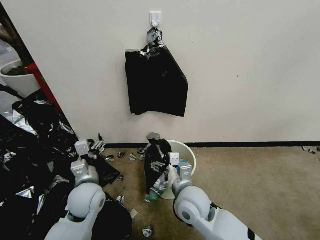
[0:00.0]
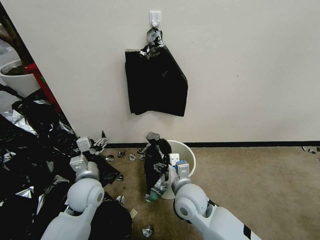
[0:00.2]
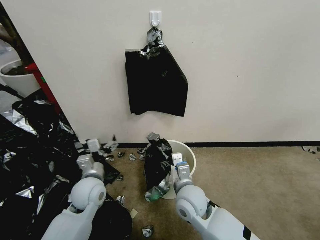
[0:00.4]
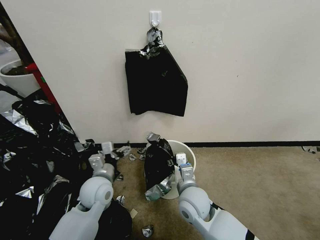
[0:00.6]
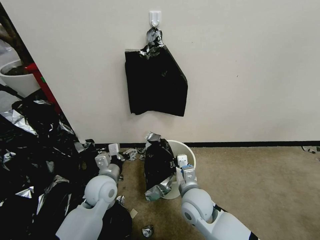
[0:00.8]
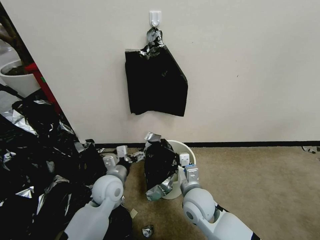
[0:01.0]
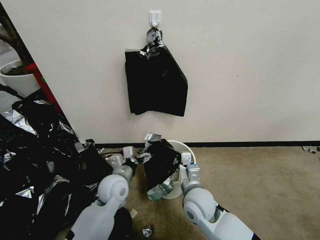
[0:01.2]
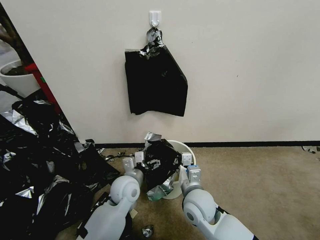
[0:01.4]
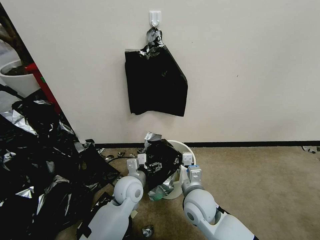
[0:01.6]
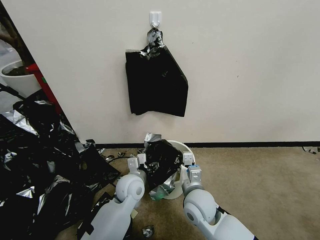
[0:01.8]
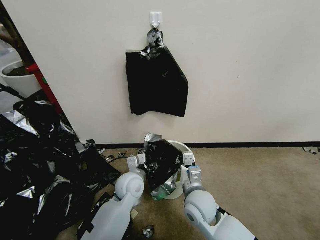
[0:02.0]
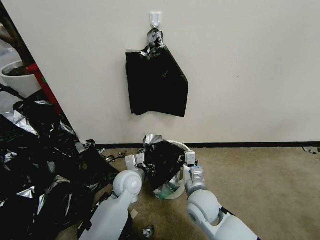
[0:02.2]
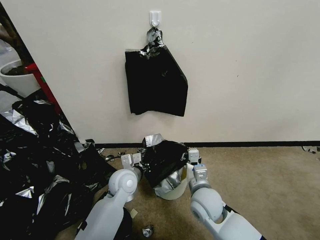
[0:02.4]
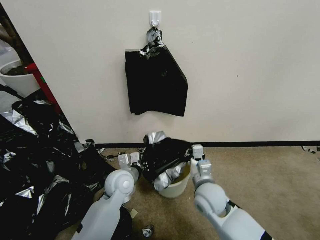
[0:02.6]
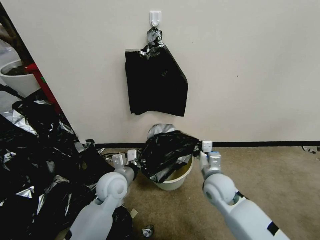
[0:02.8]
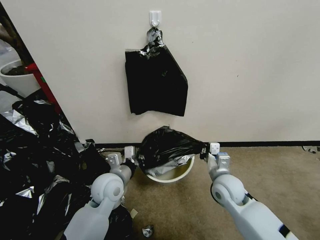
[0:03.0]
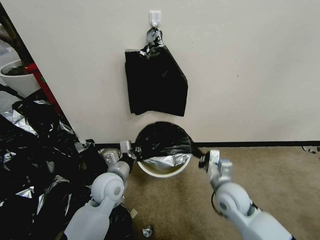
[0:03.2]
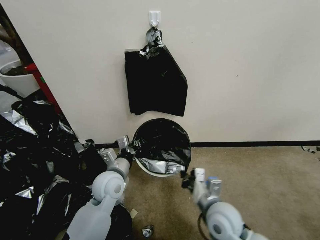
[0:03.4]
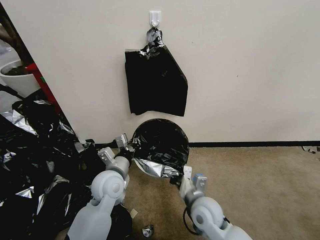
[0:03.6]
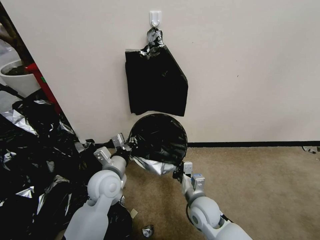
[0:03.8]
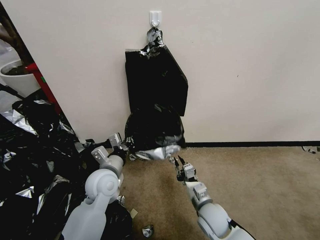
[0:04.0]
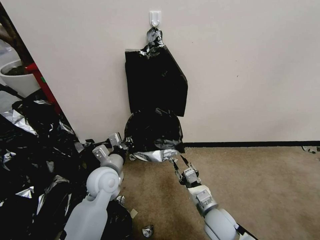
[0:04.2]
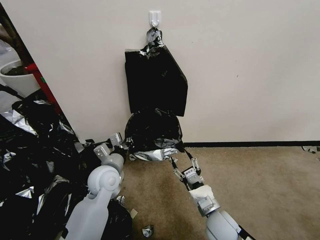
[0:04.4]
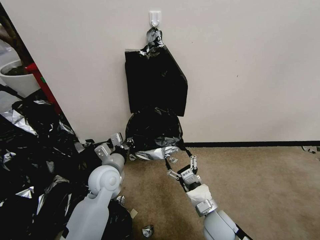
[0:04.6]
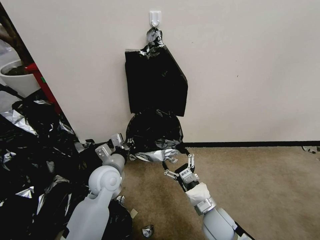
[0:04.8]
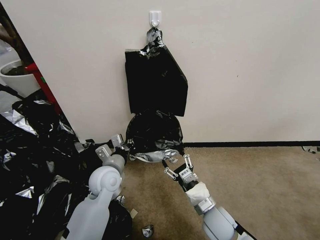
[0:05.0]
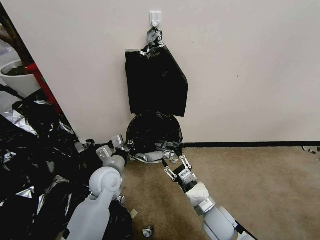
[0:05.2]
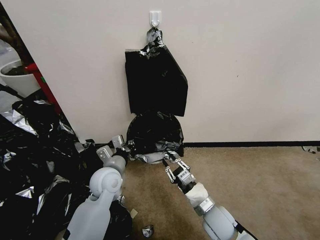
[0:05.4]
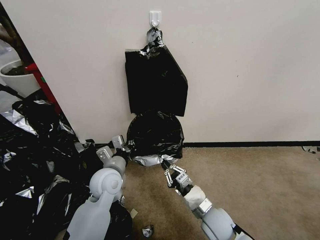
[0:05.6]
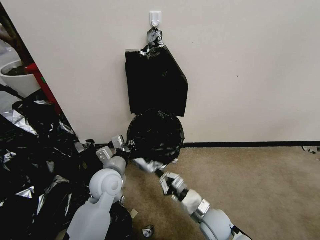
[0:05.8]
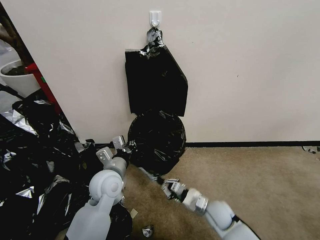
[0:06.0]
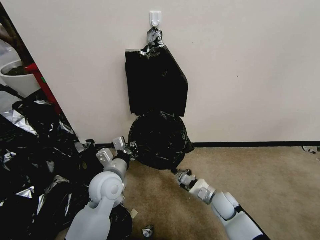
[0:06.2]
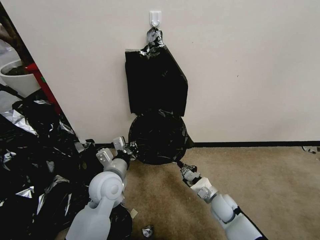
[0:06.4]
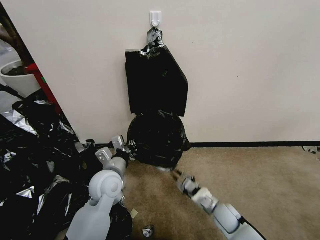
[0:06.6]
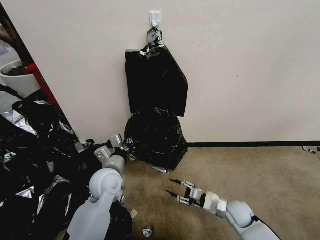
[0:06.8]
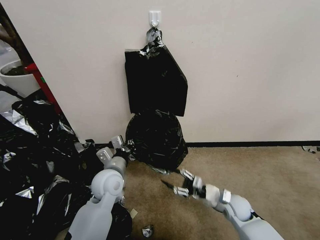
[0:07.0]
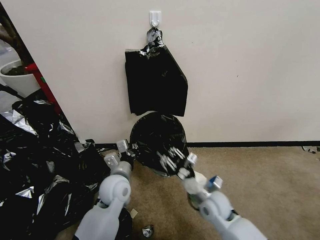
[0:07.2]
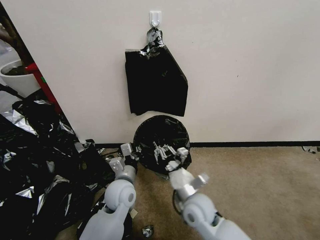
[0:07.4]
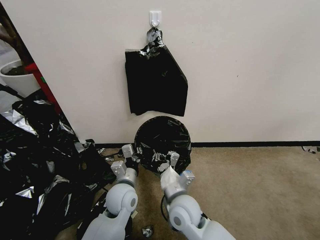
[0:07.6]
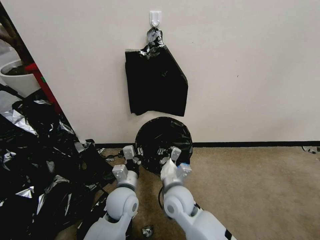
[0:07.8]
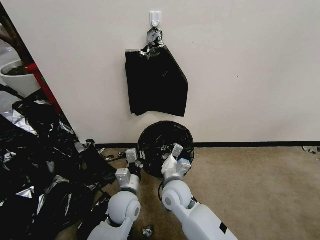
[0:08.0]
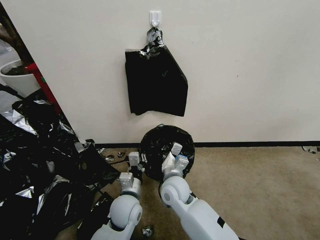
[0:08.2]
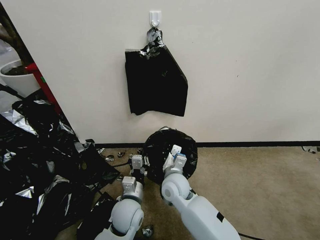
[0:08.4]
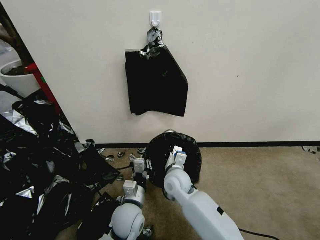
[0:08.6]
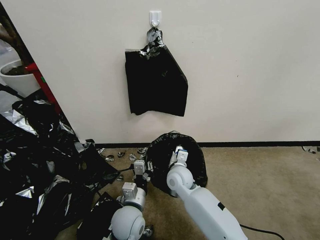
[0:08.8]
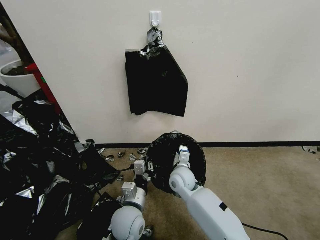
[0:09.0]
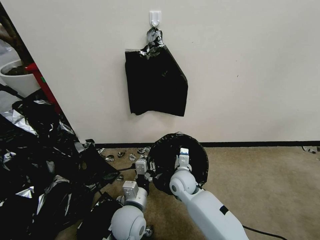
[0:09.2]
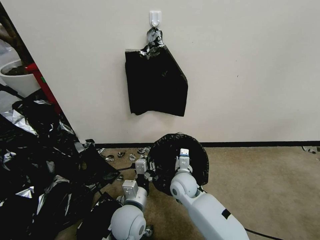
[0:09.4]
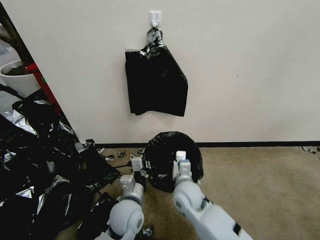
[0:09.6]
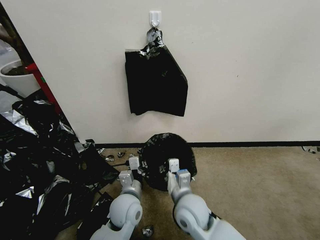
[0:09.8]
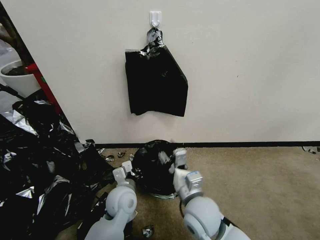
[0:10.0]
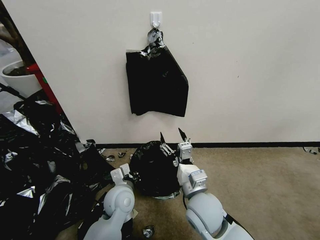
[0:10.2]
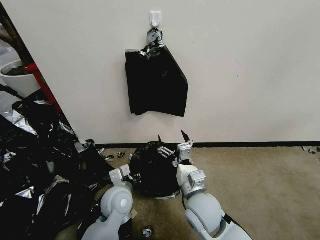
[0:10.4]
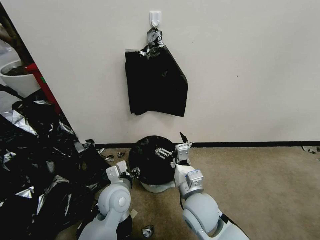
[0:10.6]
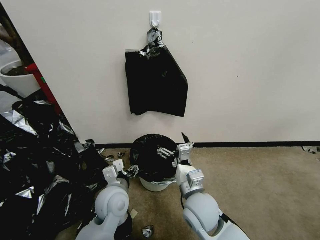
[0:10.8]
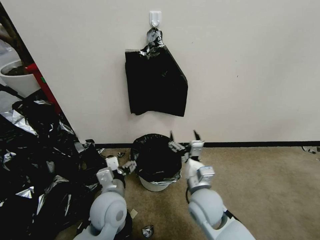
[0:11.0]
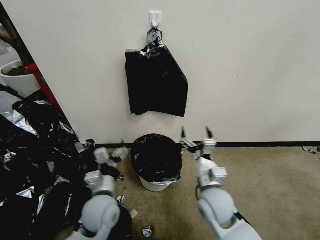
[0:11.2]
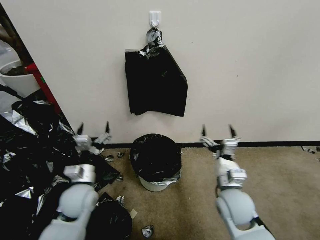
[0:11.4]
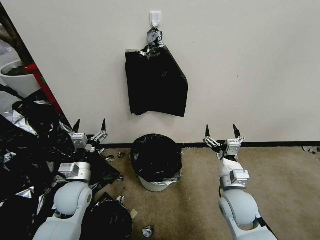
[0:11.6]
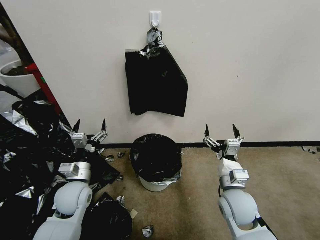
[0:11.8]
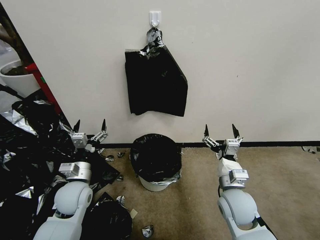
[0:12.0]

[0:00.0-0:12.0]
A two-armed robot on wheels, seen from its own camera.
Task of the whole recording: Place a trash bag onto the trash bin.
0.0 to 1.6 s: The left gripper shifts roughly 10 cm to the right. Meanwhile the right gripper closes up.
1.6 to 3.0 s: The left gripper is displaced to the left by roughly 5 cm, and closes its fingers. Meanwhile the right gripper goes approximately 10 cm to the right and forward.
3.0 to 4.4 s: The right gripper goes forward and backward, approximately 10 cm each way, reversing 2 times, and opens up.
4.4 to 6.0 s: The right gripper shifts about 10 cm downward and forward, and closes its fingers.
6.0 to 7.6 s: The right gripper moves to the left and upward, roughly 20 cm, and opens, then closes again. Meanwhile the left gripper travels downward by some 5 cm.
7.6 to 9.0 s: The right gripper travels forward by some 10 cm, while the left gripper moves backward, approximately 5 cm.
9.0 to 10.4 s: The right gripper moves backward and upward, roughly 15 cm, and opens up. The left gripper heads forward, covering roughly 5 cm.
10.4 to 12.0 s: The left gripper travels to the left by approximately 15 cm, and opens, while the right gripper goes approximately 10 cm to the right.

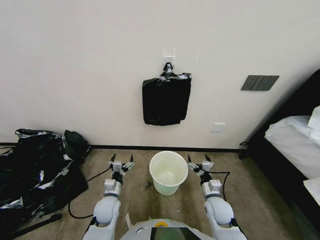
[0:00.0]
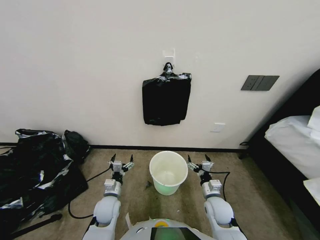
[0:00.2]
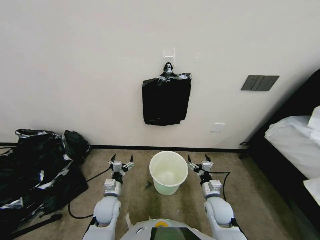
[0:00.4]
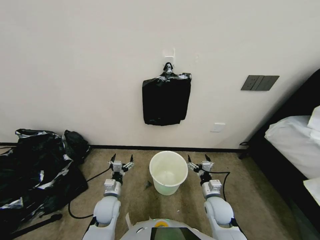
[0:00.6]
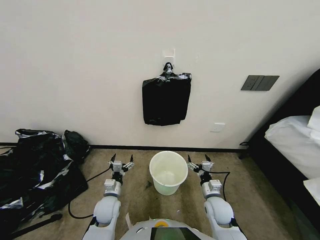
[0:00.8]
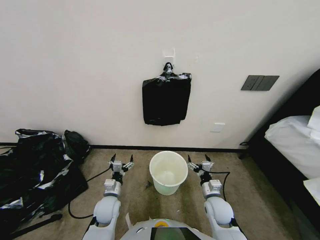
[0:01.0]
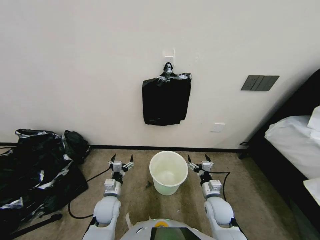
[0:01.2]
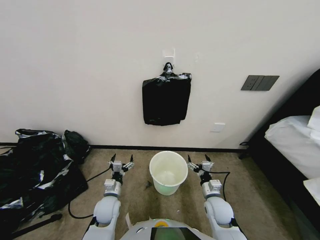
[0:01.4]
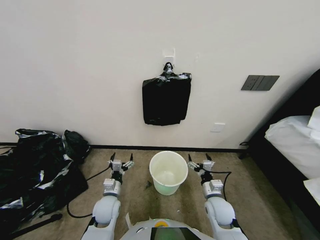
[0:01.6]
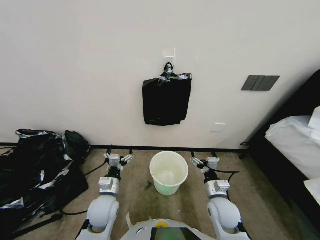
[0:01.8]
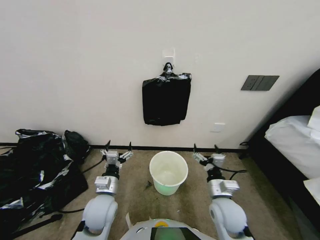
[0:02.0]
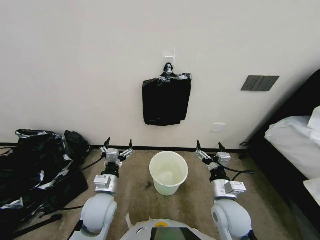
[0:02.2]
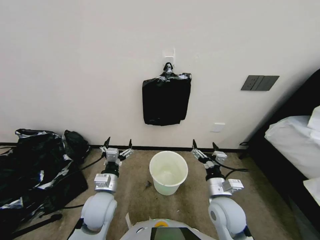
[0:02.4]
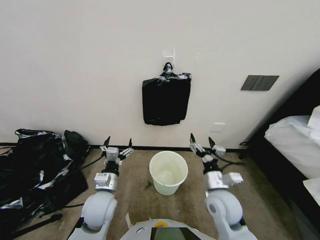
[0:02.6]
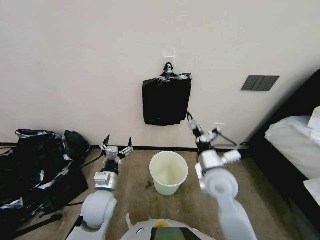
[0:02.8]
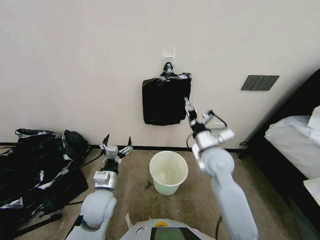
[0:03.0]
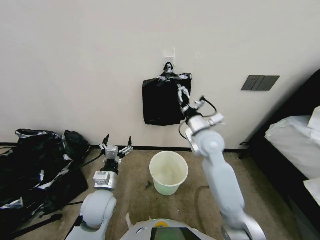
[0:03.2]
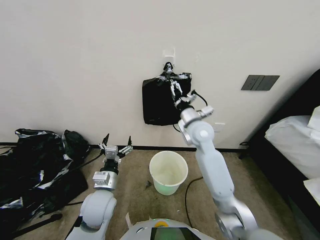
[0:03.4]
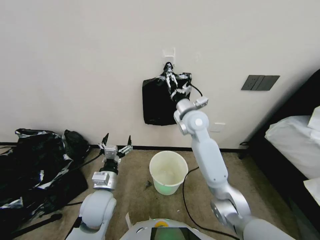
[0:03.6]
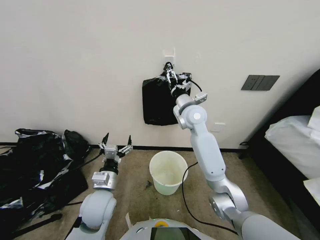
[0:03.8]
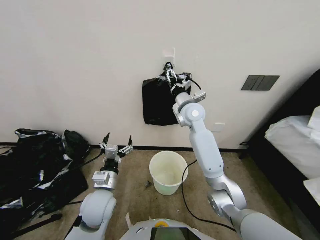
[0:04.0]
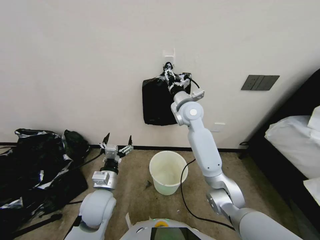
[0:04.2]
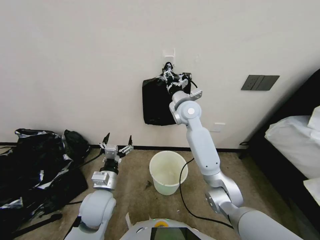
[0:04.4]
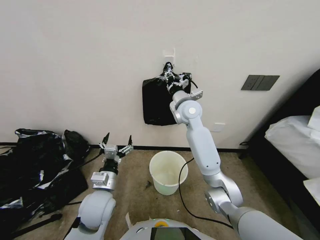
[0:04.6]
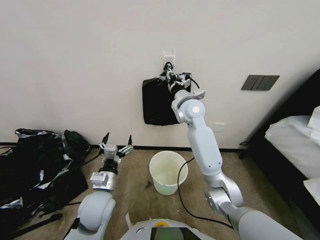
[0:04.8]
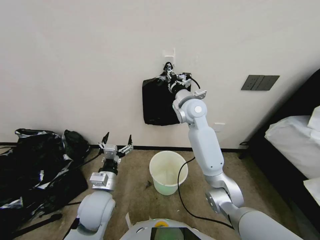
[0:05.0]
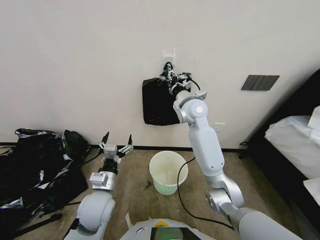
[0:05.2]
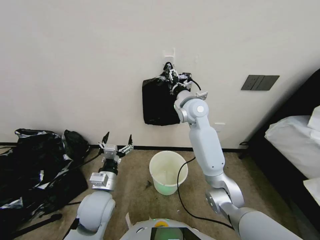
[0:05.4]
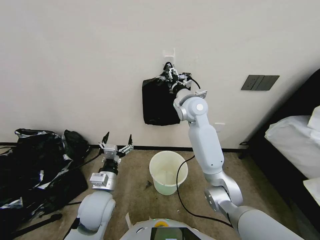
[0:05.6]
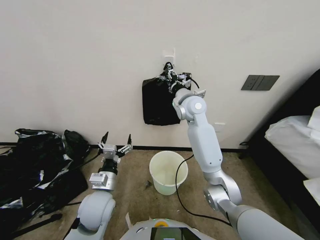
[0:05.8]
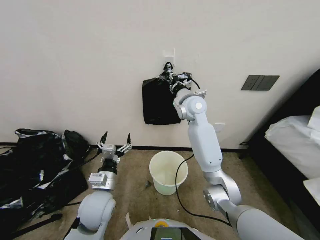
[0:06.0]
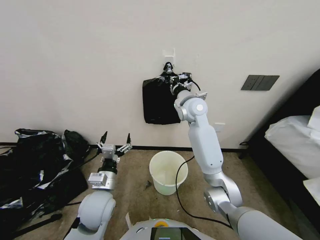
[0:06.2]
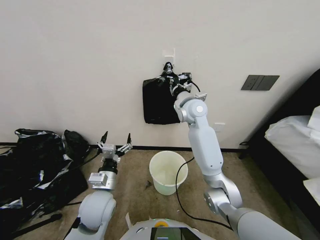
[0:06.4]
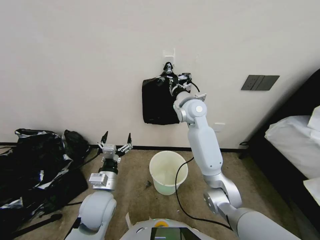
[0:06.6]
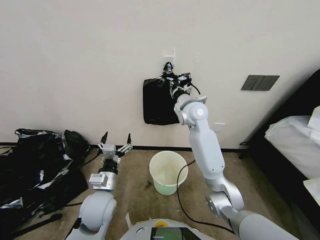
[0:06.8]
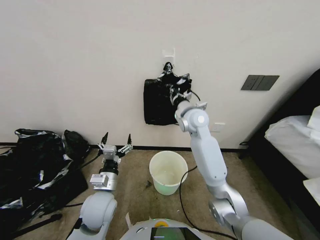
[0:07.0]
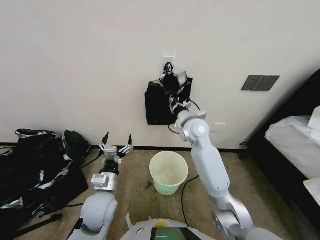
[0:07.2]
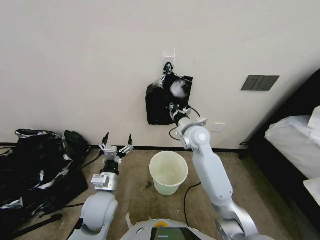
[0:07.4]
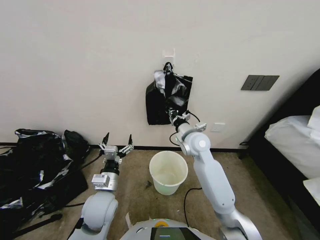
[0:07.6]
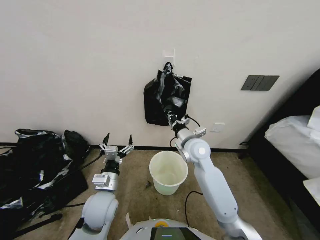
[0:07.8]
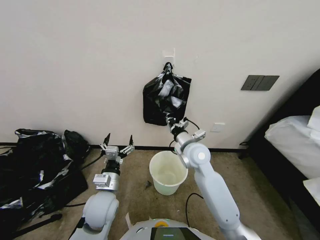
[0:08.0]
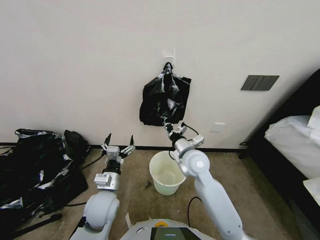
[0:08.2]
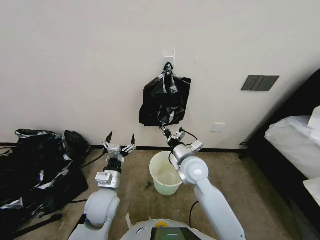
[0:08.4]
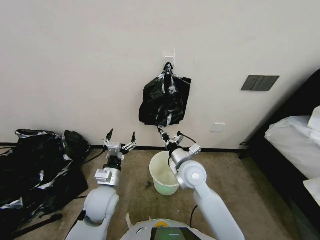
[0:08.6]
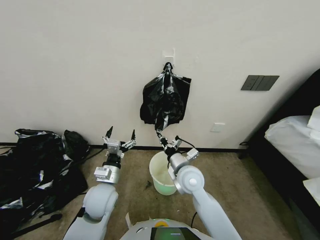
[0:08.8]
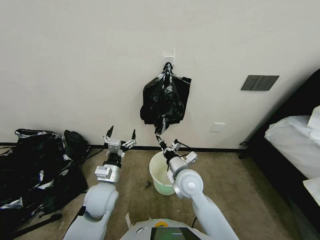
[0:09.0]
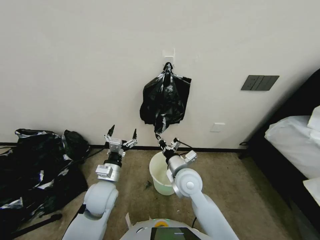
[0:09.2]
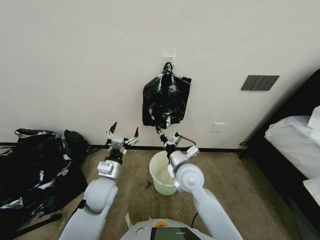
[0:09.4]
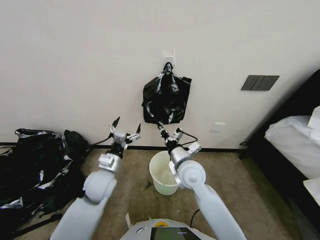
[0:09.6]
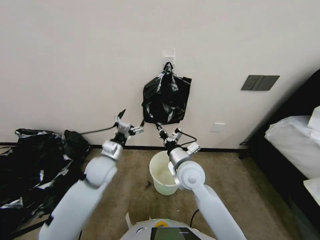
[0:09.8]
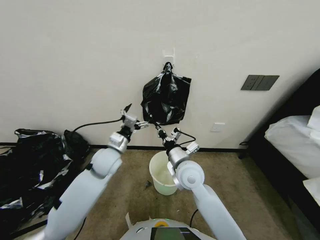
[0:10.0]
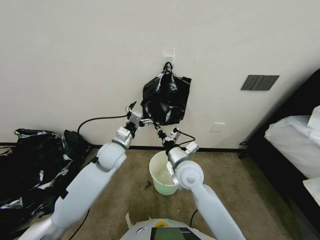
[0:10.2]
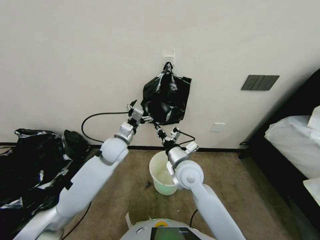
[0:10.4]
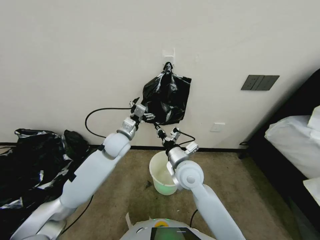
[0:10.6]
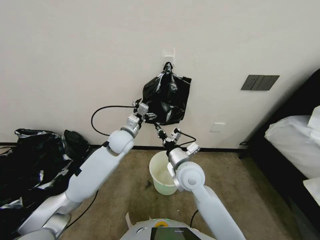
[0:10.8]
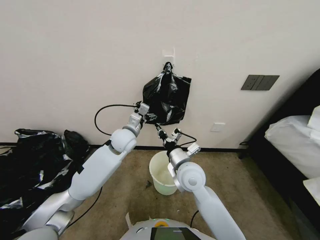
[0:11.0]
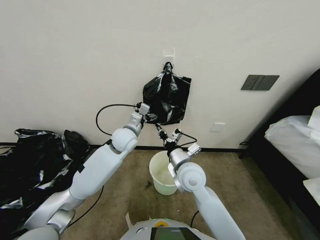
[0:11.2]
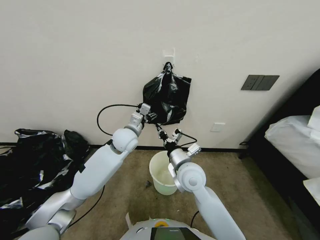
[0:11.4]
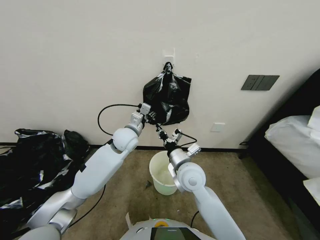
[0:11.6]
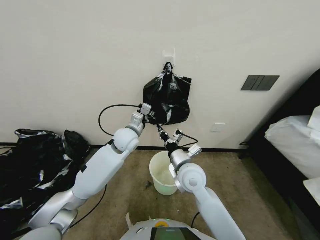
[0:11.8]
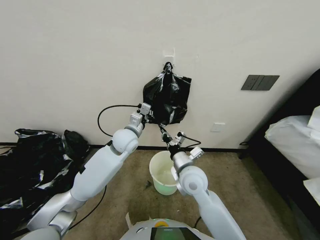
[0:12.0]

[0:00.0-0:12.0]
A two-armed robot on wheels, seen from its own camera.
Task of the whole recording: Place a trash bag onto the trash bin.
1.6 to 3.0 s: The right gripper is displaced upward by some 20 cm; the left gripper heads upward, covering some 10 cm.
3.0 to 4.4 s: The right gripper heads forward and upward, covering some 25 cm, and closes.
4.4 to 6.0 s: The grippers move only a little.
6.0 to 7.6 s: The right gripper heads downward and backward, covering approximately 15 cm, and closes.
7.6 to 9.0 s: The right gripper moves backward and downward, roughly 15 cm.
9.0 to 10.4 s: The left gripper shifts approximately 15 cm forward and upward.
10.4 to 12.0 s: The left gripper ends up about 5 cm from where it was, and closes.
